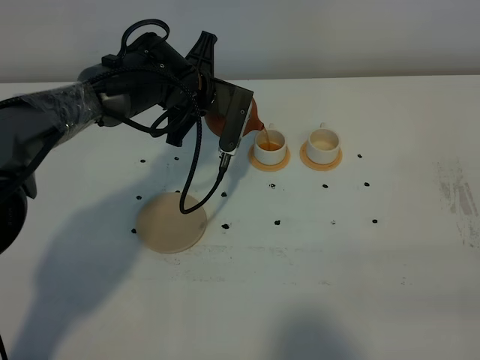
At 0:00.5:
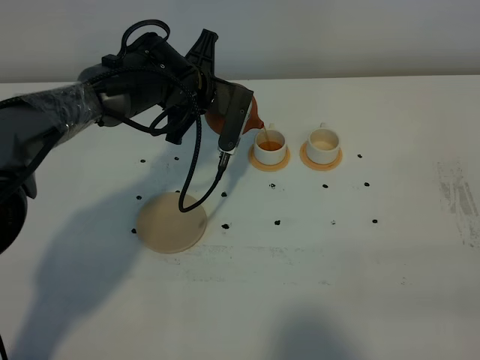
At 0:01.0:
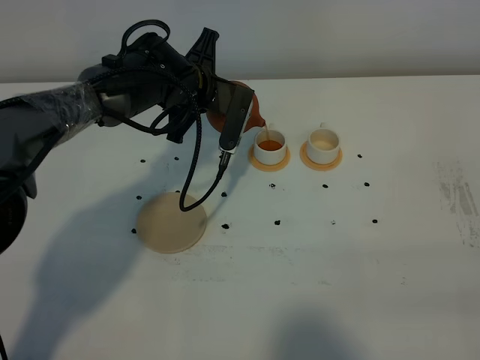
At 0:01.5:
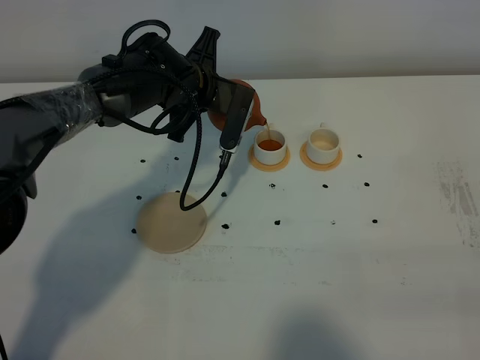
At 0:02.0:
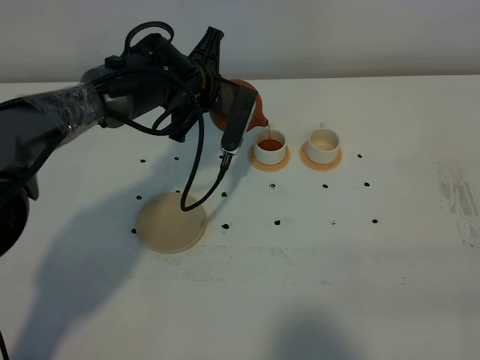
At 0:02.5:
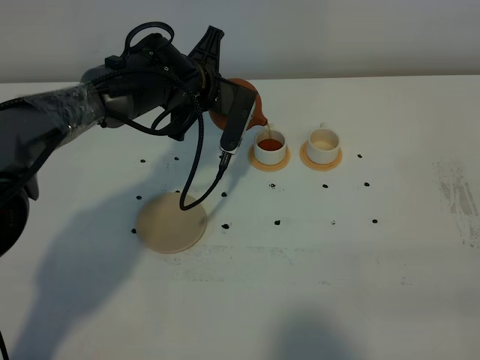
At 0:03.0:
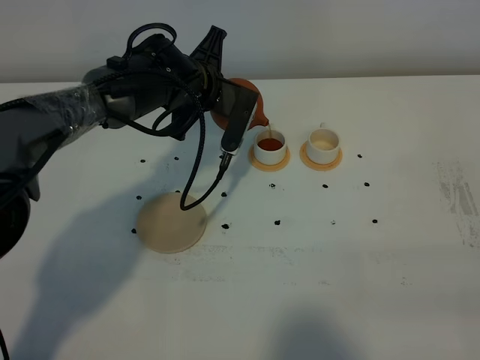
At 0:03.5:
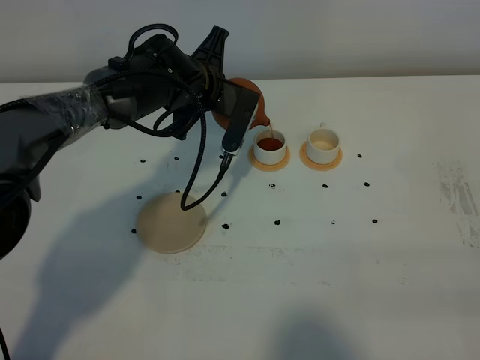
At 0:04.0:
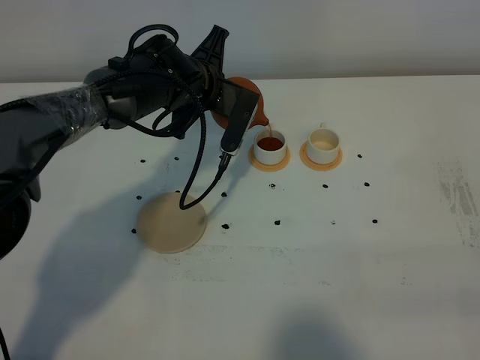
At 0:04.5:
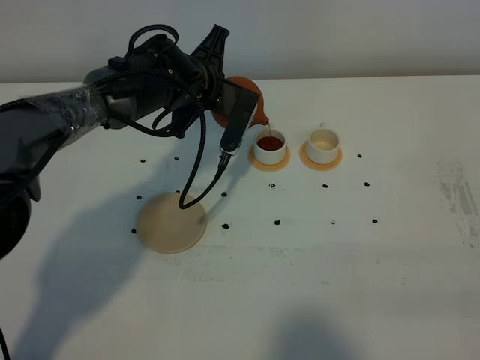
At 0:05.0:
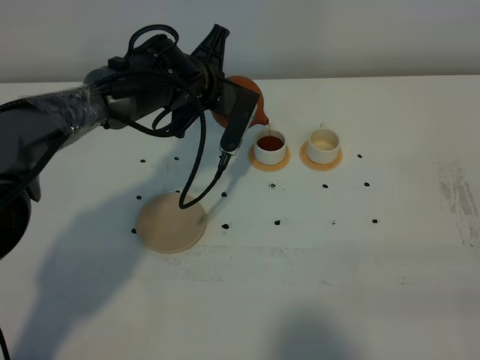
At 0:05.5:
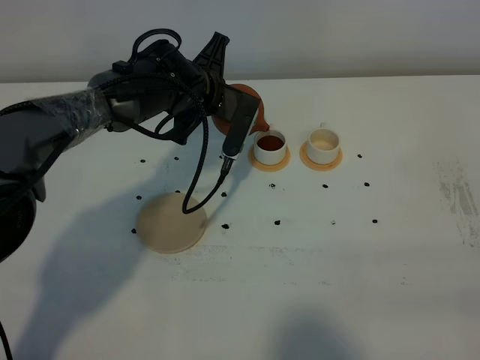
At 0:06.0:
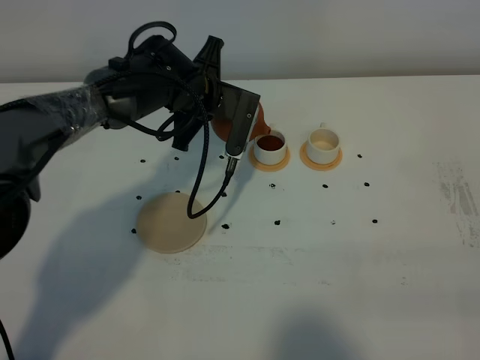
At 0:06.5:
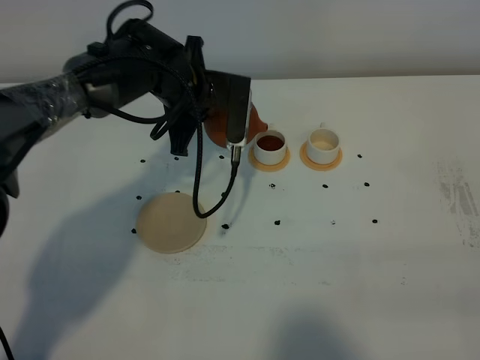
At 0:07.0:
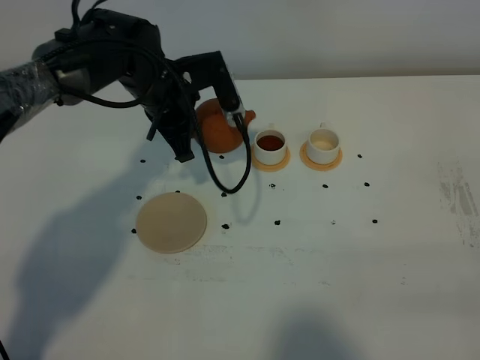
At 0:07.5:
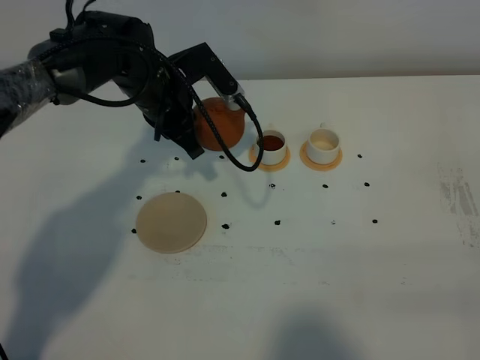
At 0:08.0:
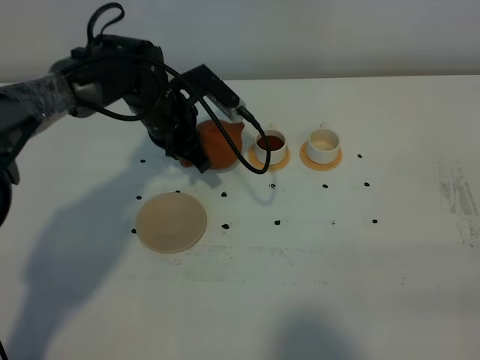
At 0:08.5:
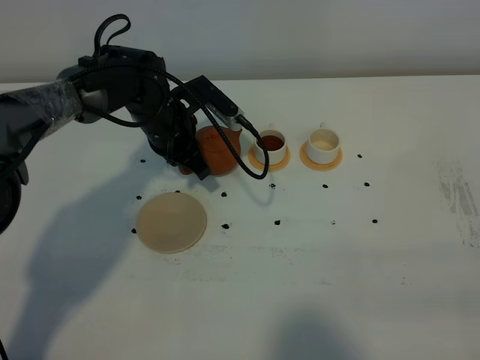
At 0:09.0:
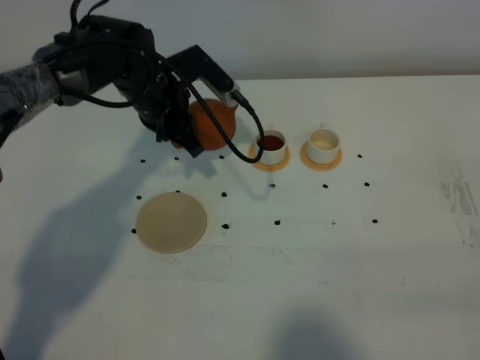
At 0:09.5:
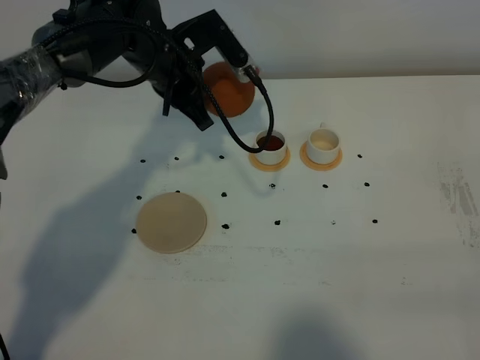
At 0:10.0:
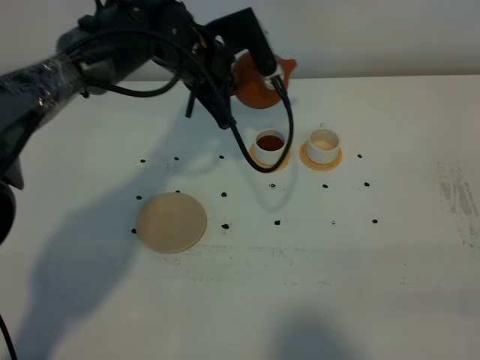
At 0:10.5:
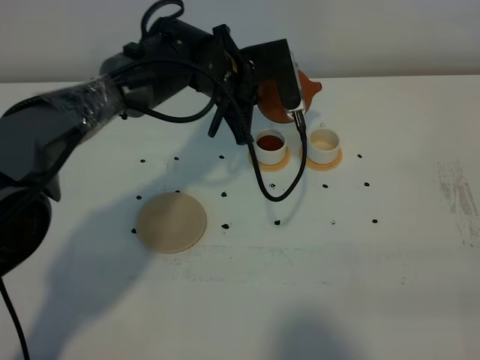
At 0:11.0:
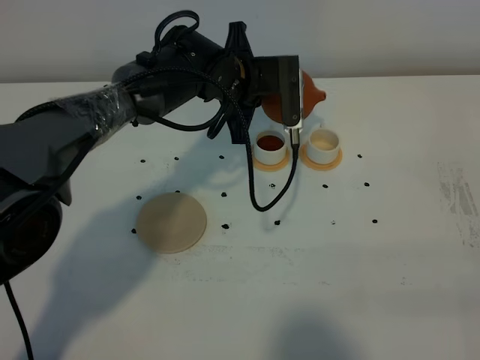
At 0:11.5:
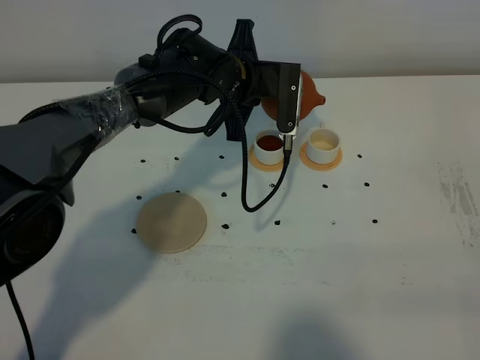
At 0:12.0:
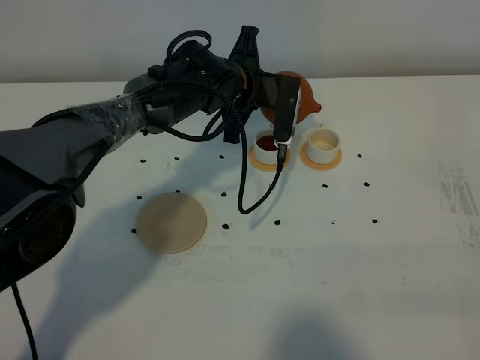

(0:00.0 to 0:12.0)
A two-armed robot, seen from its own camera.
Task of the whole recording: grasp the brown teapot and pour the tea into the two white teacups one by one, put the brown teapot back in its original place.
0:00.0 - 0:02.0: Both grippers stay put.
0:02.0 - 0:04.0: Both grippers stay about where they are.
0:04.0 - 0:06.0: The grippers make only small movements.
0:06.0 - 0:08.0: The left gripper ends up some 5 cm from where it was.
0:08.0 - 0:10.0: The left gripper travels upward and to the right by about 10 cm.
0:10.0 - 0:12.0: The left gripper shifts about 5 cm downward.

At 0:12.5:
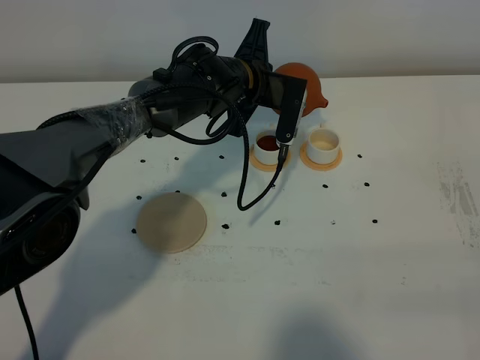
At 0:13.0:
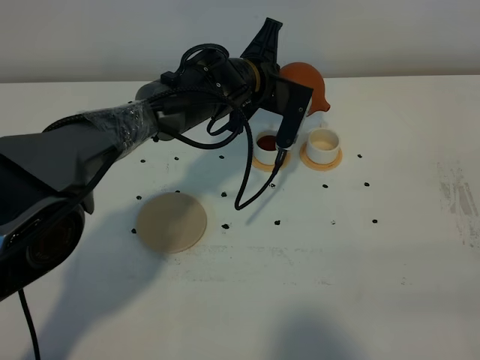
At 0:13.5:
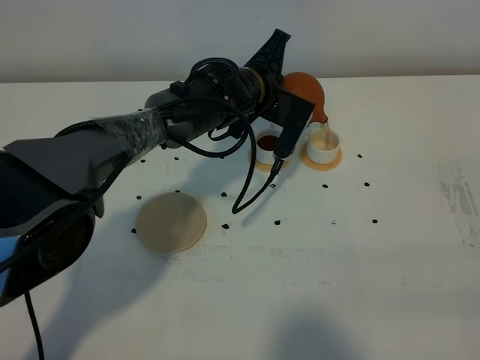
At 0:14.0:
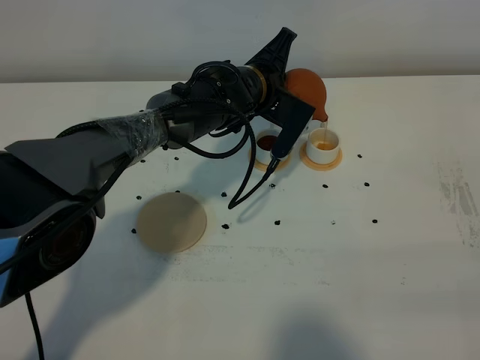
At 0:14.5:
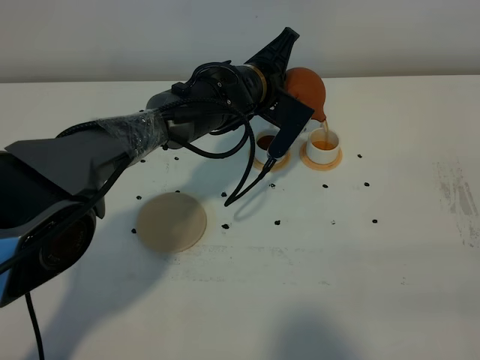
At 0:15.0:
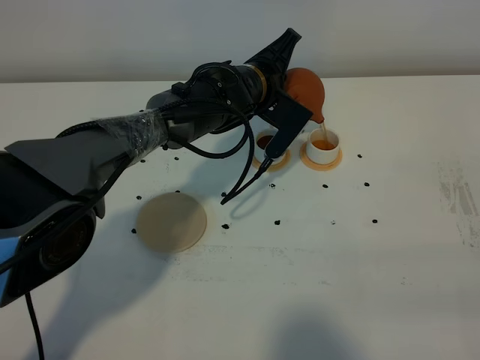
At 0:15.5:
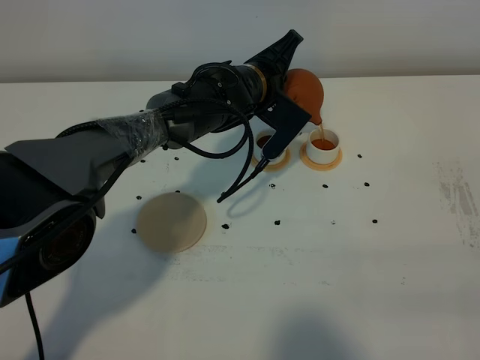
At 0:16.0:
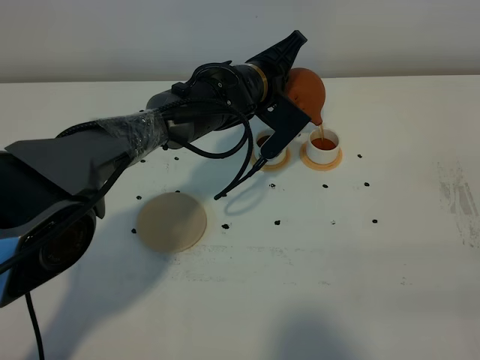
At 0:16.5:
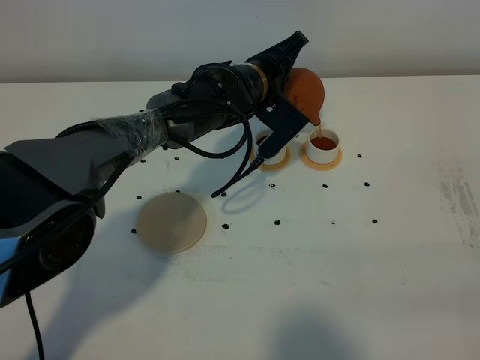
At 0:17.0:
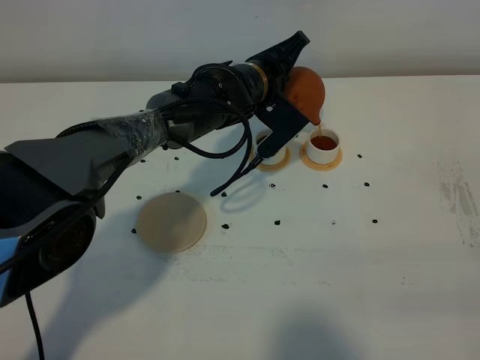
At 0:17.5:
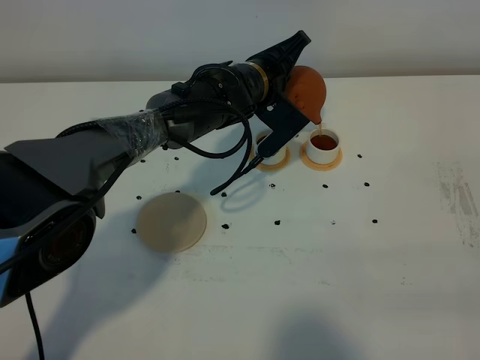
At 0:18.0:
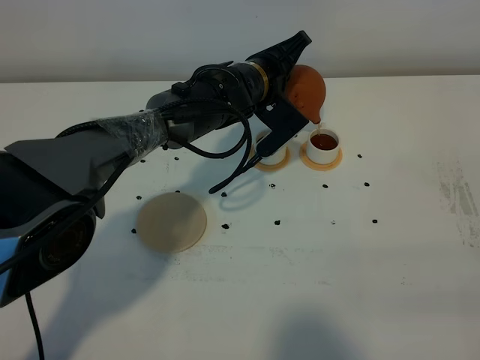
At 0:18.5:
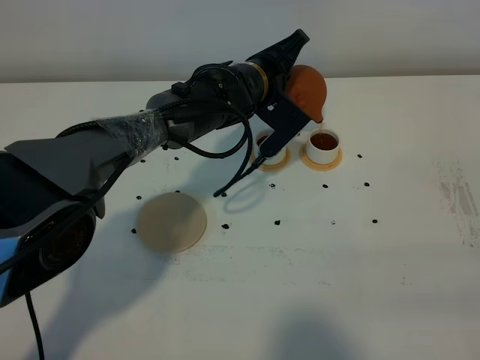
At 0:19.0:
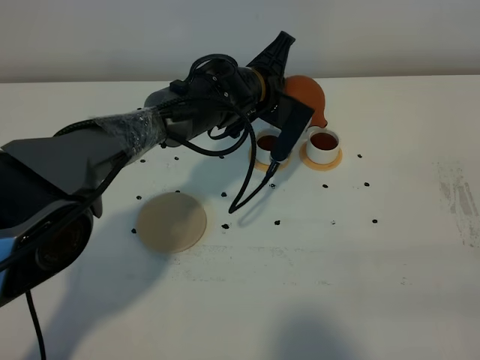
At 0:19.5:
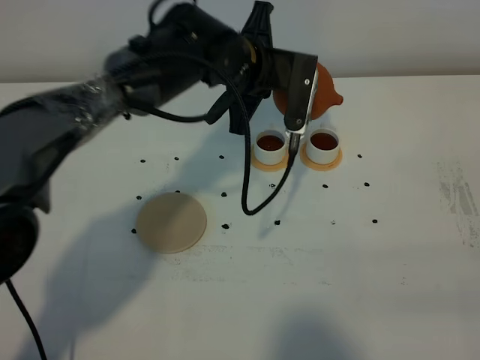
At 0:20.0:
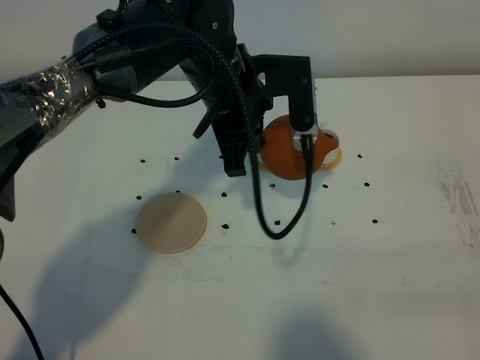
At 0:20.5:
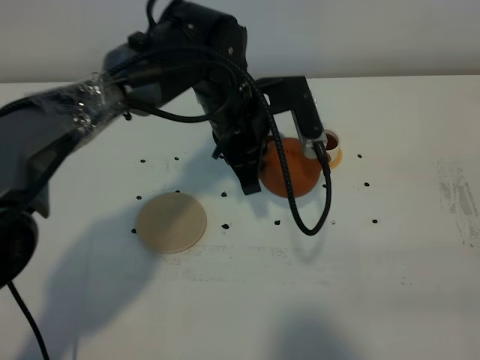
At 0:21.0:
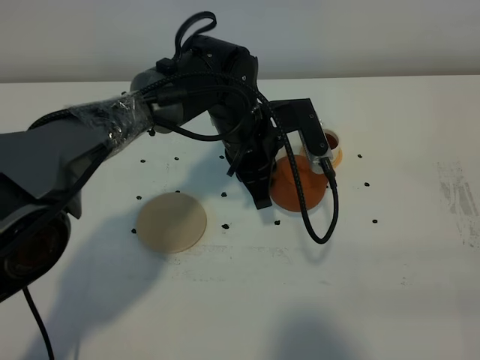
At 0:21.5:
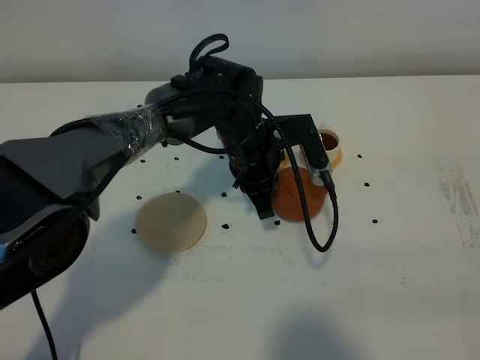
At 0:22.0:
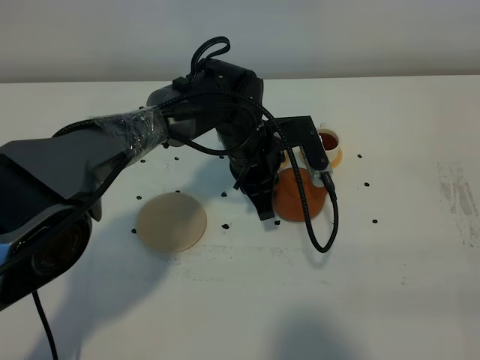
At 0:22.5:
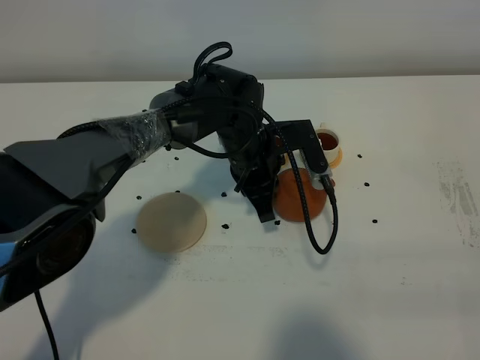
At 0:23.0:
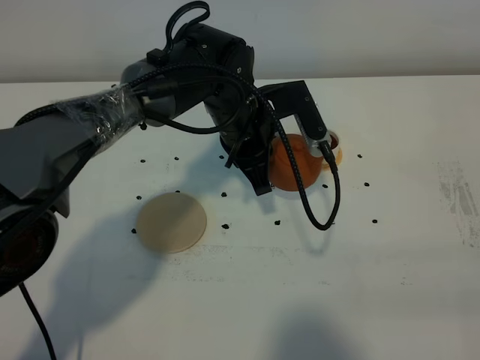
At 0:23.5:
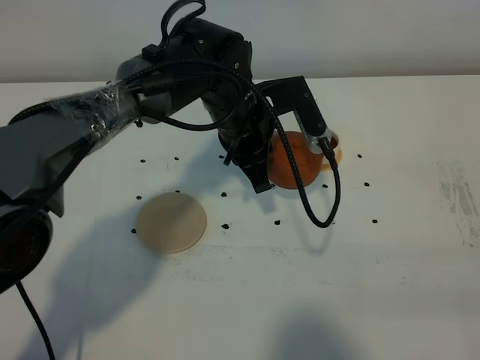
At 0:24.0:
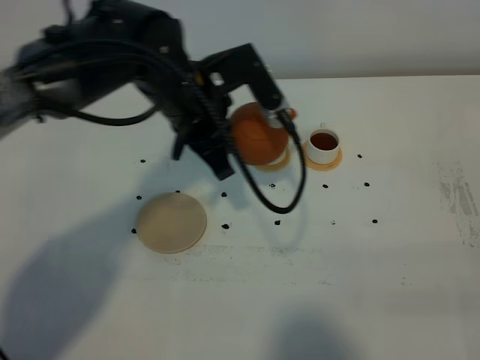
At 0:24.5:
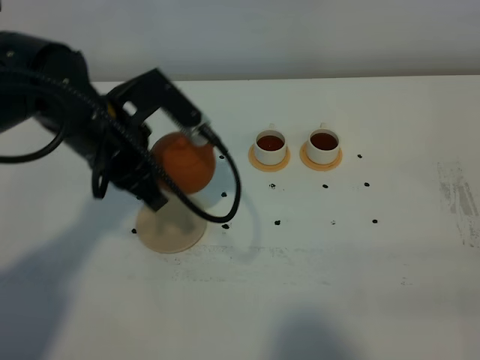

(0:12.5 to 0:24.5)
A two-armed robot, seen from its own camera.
Task of the whole recording: grasp the brown teapot and pour the tea into the two white teacups one by one, put the brown teapot back in its original place.
Step, 0:12.5 - 0:19.5: Pour tea into the teacup with the left gripper.
0:14.5 - 0:16.5: There are only small adjustments of the grippers.
0:16.5 - 0:18.5: Both grippers stay put.
0:18.5 - 0:20.5: The left gripper goes some 10 cm backward.
0:20.5 - 0:22.5: The left gripper moves downward, some 5 cm.
0:22.5 - 0:24.5: The left gripper heads to the left, upward and backward, covering some 20 cm.

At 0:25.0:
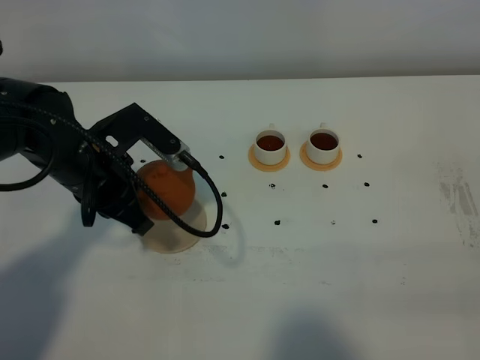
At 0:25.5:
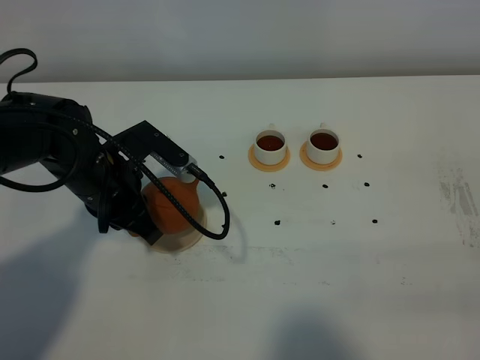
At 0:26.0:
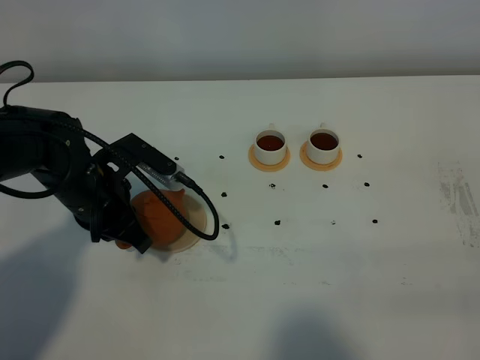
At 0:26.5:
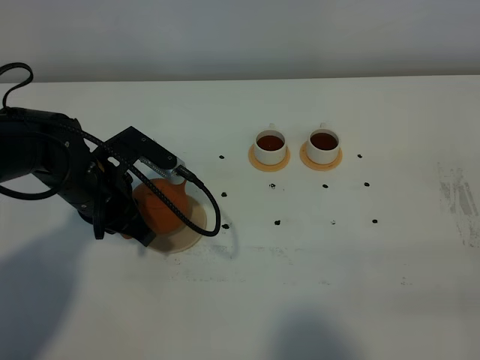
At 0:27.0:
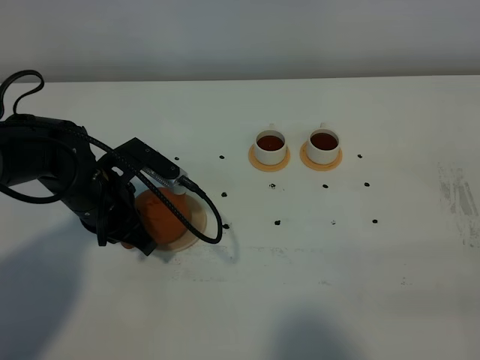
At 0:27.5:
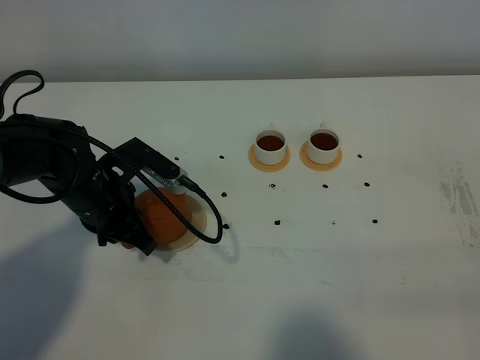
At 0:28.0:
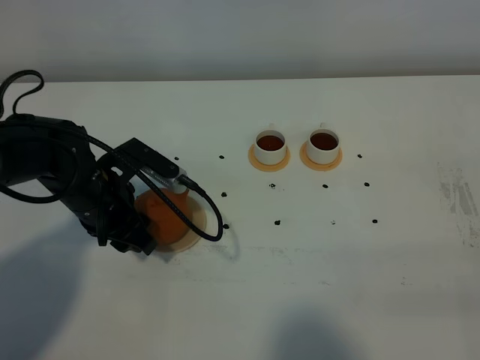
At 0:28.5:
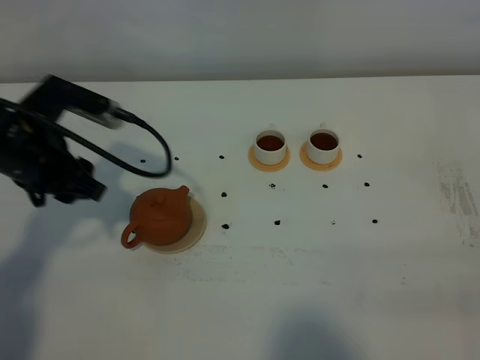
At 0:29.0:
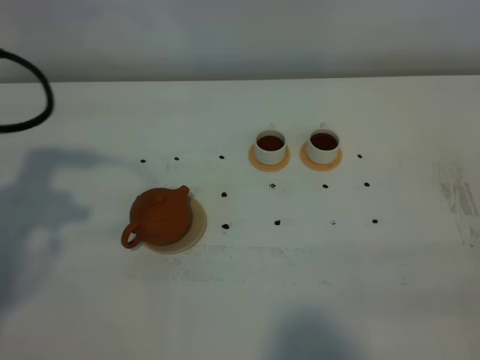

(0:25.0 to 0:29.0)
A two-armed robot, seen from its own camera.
Task of the whole recording: grasp the brown teapot and pour the tea into the two white teacups one by one, put the brown teapot back in its original place.
0:25.0 - 0:27.0: The left gripper is displaced downward by approximately 5 cm.
0:27.0 - 0:29.0: The left gripper heads upward, to the left and backward, covering about 25 cm, and opens up.
